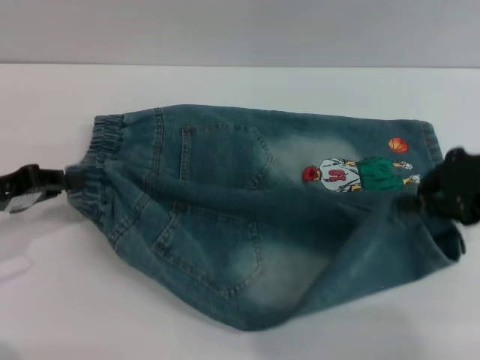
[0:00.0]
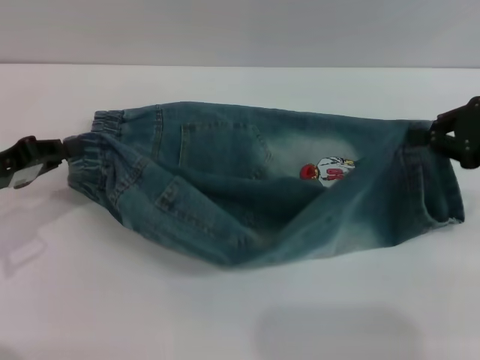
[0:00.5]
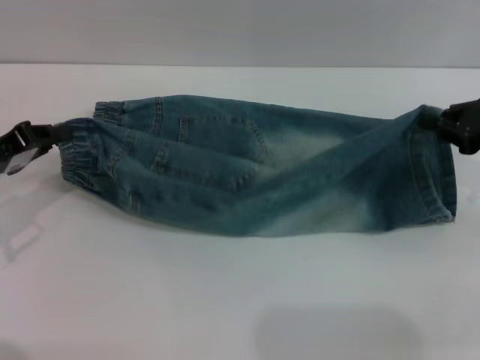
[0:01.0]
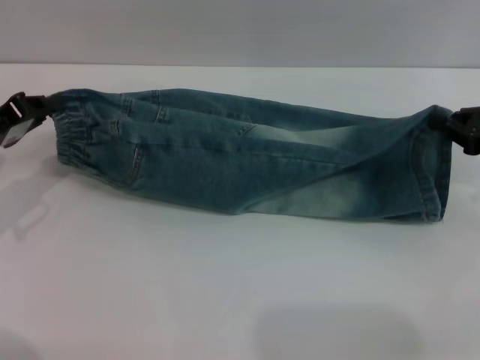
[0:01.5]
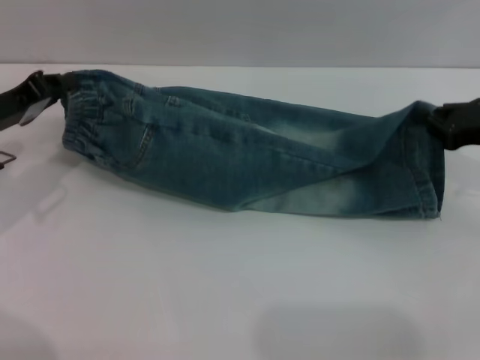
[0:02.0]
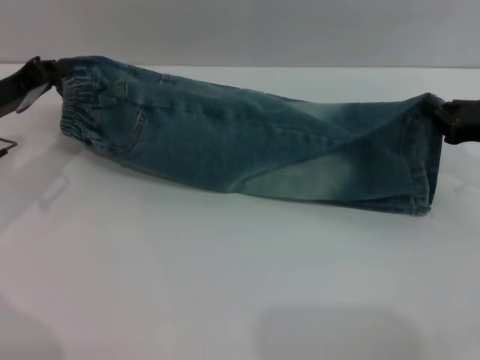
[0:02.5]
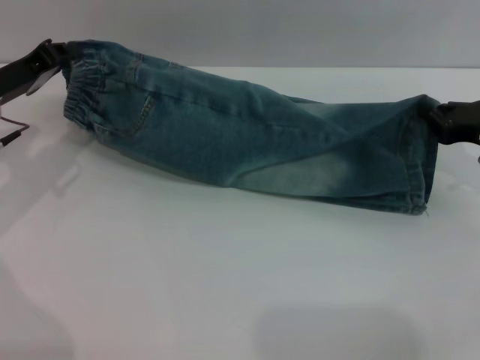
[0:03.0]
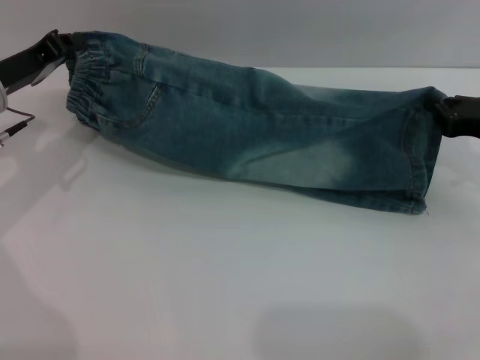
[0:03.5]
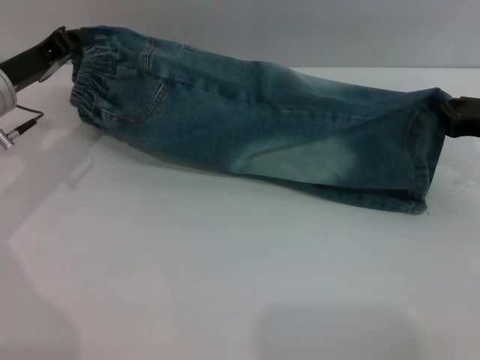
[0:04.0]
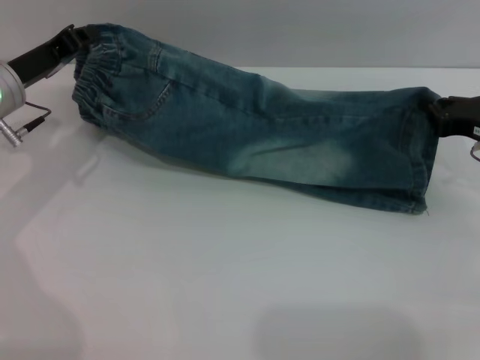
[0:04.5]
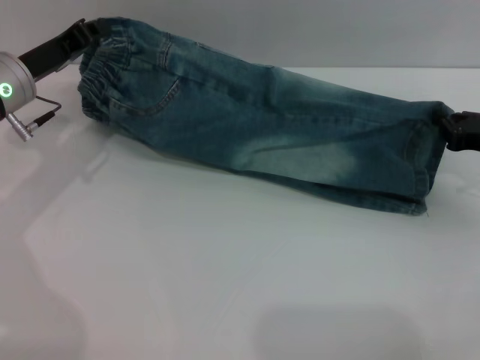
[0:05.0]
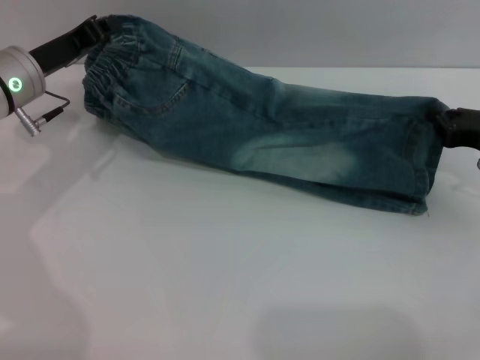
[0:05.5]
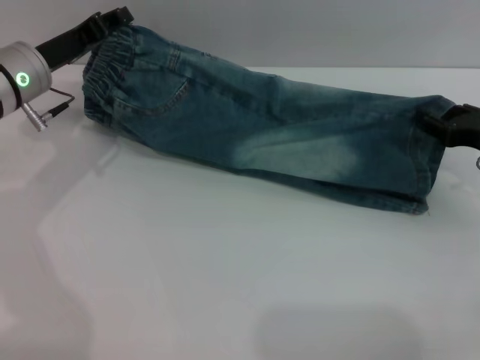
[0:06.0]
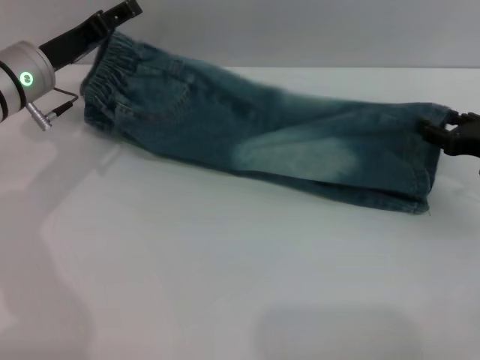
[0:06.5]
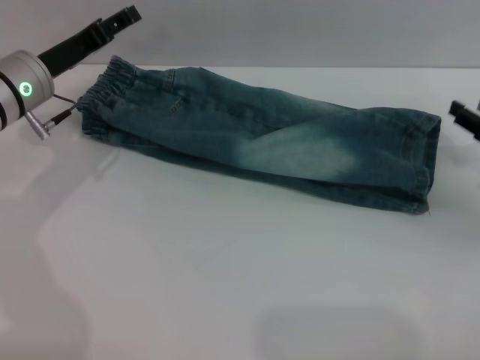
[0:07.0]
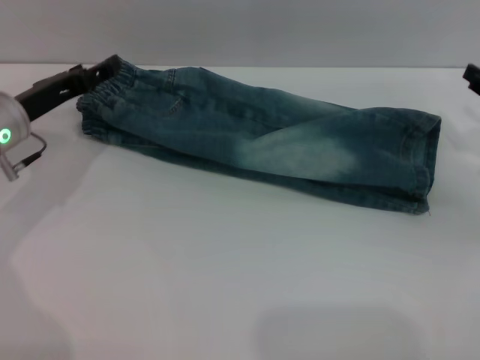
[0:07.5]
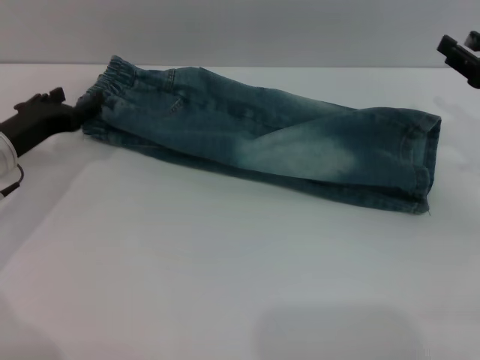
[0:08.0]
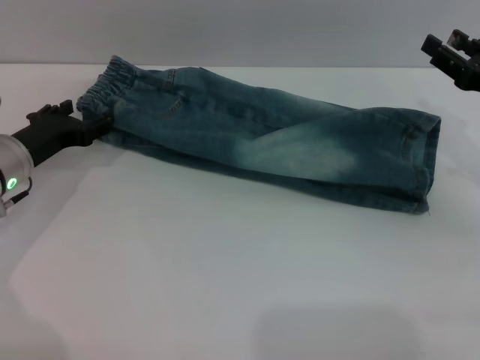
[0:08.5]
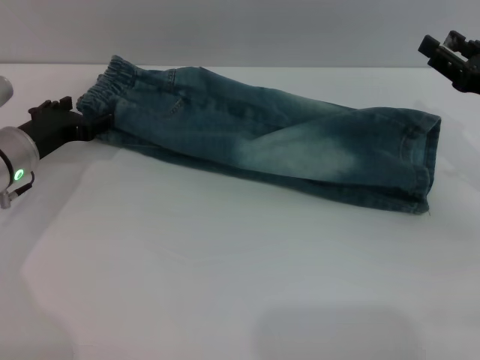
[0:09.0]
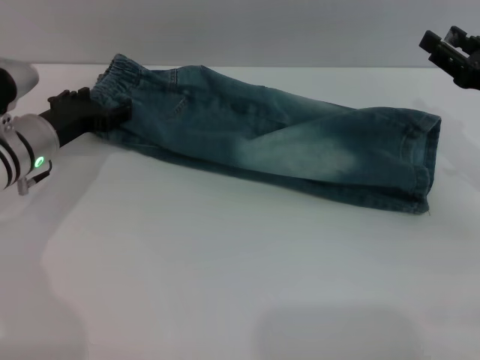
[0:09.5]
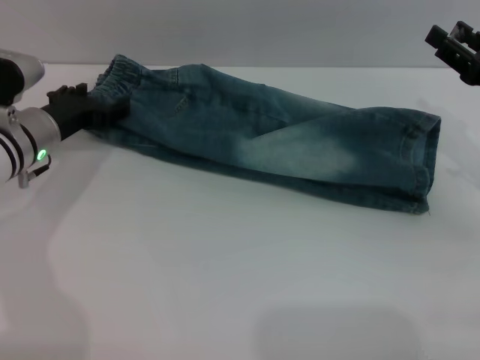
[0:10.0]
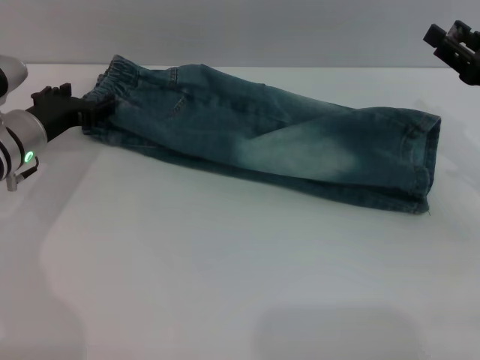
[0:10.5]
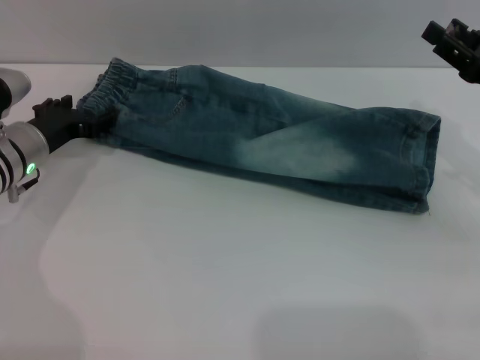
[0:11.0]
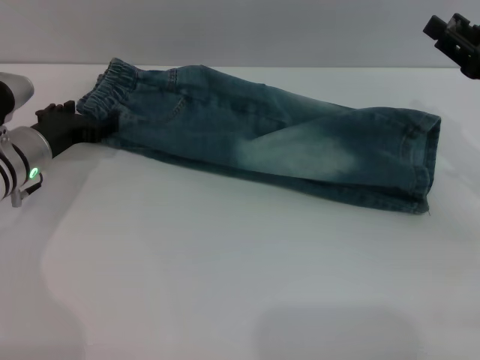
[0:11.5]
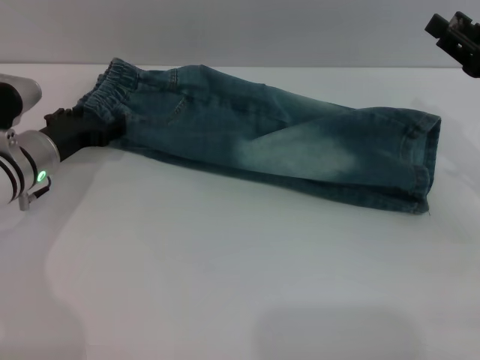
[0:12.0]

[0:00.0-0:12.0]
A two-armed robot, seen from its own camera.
Step, 0:00.0 to 0:07.0: Fold the bottom of the pants upward with both grippers.
0:00.0 to 0:02.0: The left gripper shifts roughly 5 cm forward. Meanwhile the right gripper is displaced downward by roughly 5 cm.
0:02.0 to 0:04.0: The left gripper shifts by approximately 5 cm.
0:04.0 to 0:06.0: The right gripper opens up.
0:06.0 to 0:08.0: The left gripper goes roughly 10 cm backward and downward, and opens up; the right gripper opens.
0:08.0 to 0:10.0: The left gripper shifts by roughly 5 cm.
0:10.0 to 0:12.0: The grippers move only a little.

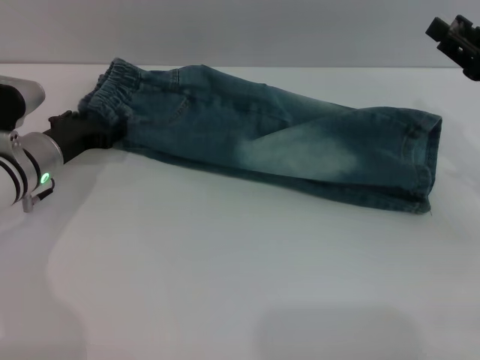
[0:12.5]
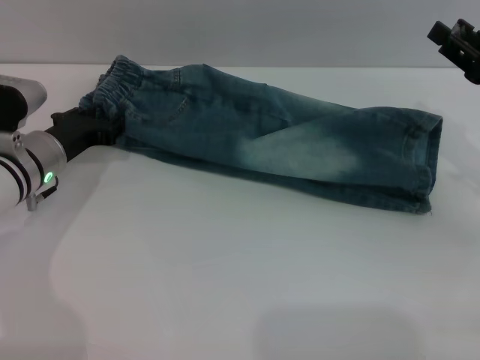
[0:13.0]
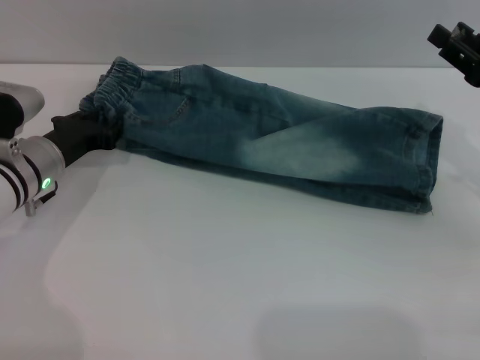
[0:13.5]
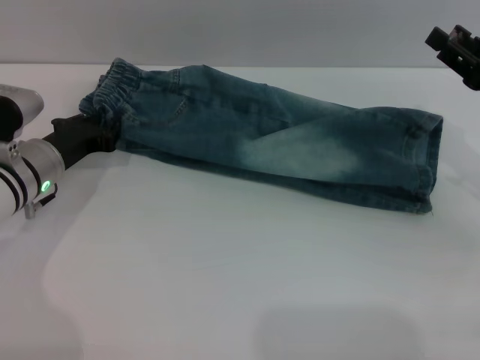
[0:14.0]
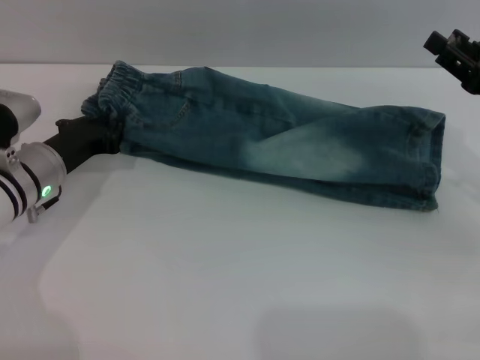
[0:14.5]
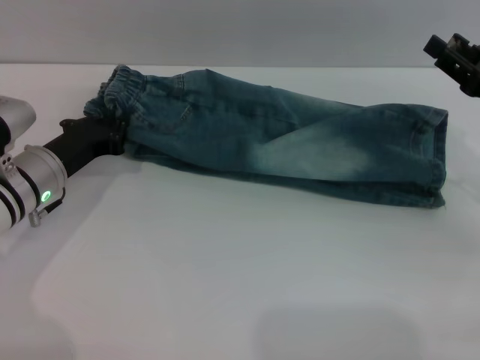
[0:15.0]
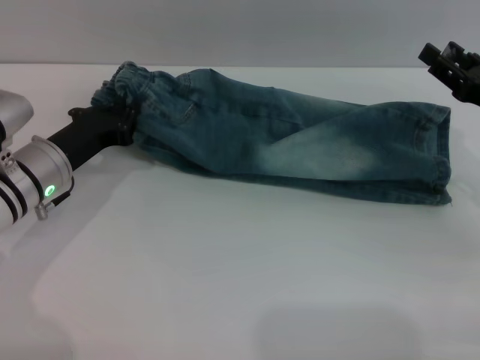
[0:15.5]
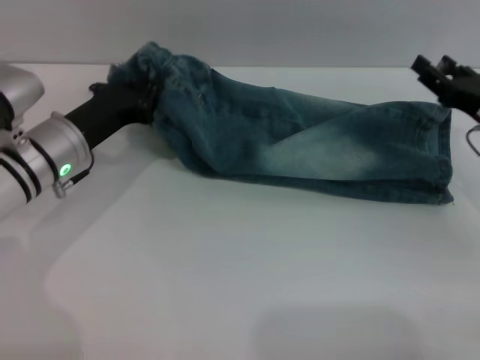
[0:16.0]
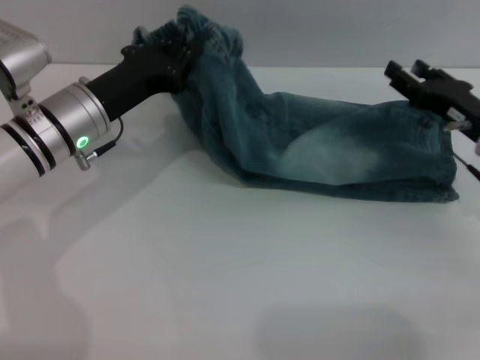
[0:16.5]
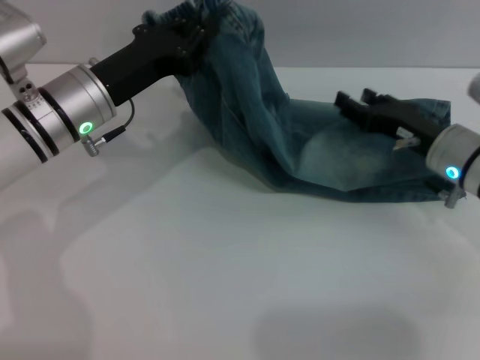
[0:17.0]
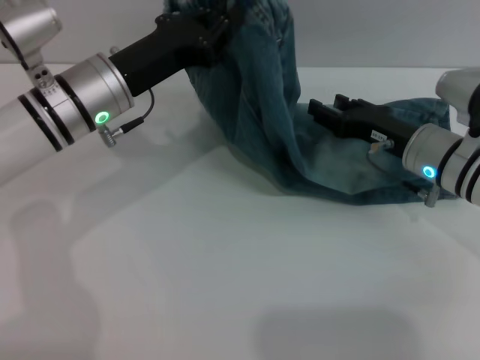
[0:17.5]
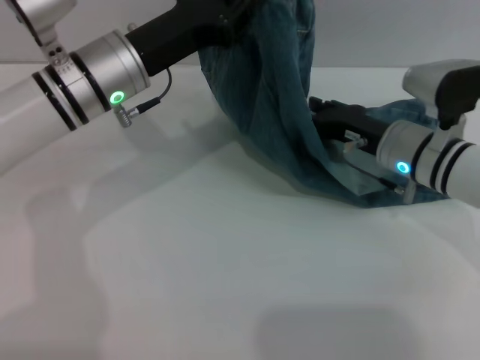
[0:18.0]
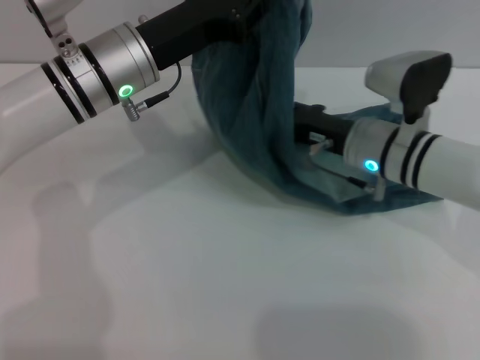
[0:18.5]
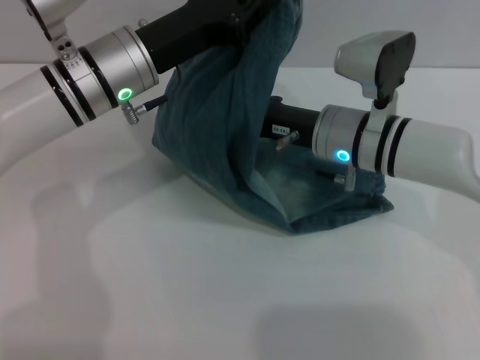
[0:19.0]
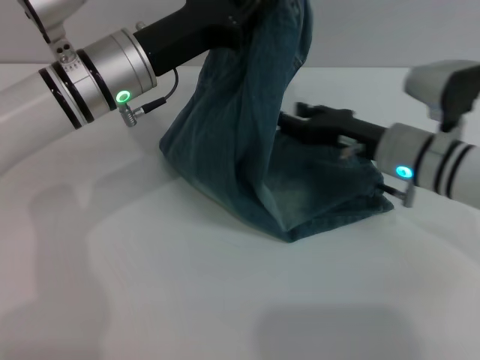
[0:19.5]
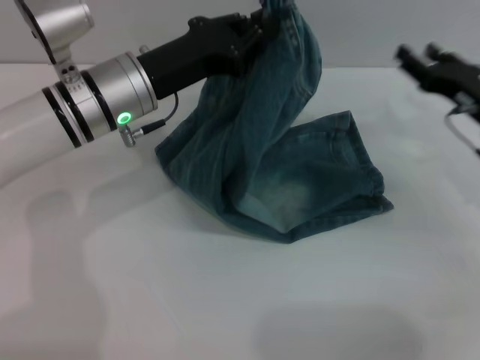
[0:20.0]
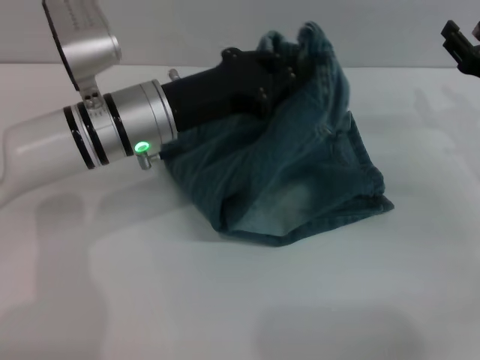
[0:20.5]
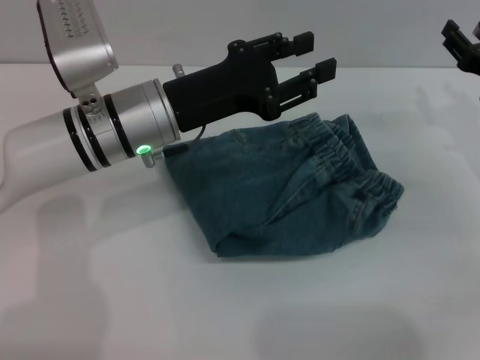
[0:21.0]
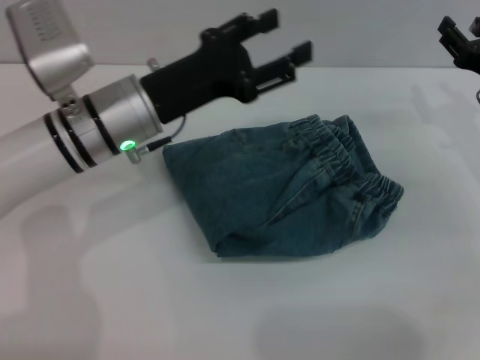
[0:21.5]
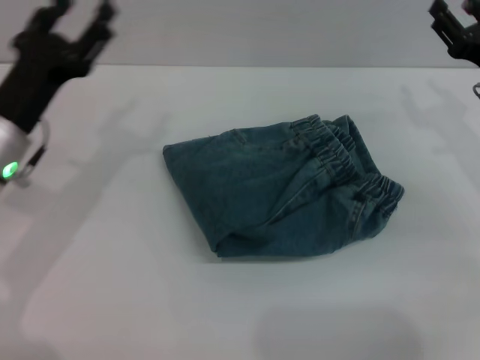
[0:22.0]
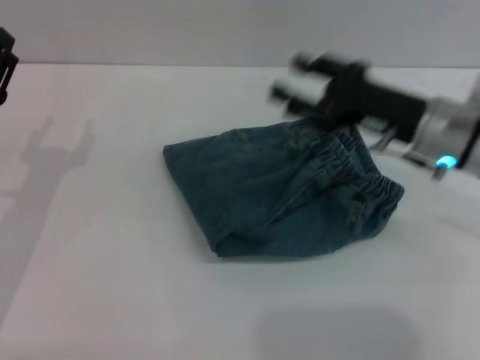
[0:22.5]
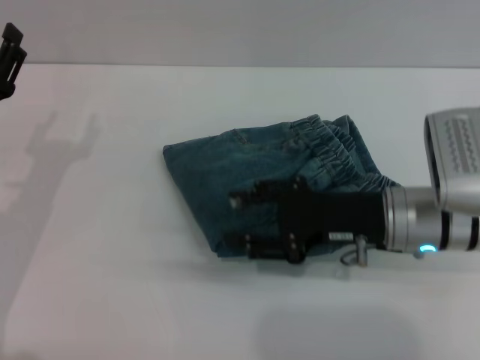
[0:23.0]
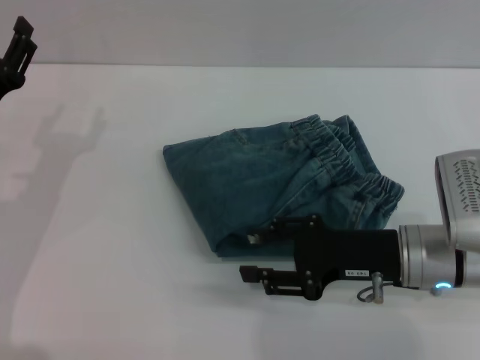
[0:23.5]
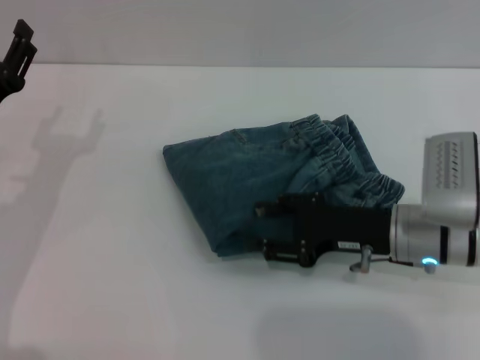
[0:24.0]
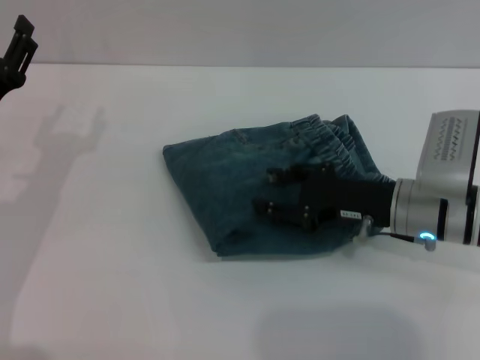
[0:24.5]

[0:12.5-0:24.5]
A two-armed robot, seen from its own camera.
Step, 0:12.5 to 0:21.0: Fold the pants from left to right with the left gripper.
0:12.5 to 0:14.5: The left gripper closes its fingers.
0:14.5 to 0:16.5: The right gripper changes place by roughly 5 cm. Meanwhile the left gripper is displaced upward and to the right by about 10 cm.
0:16.5 to 0:18.5: The left gripper shifts roughly 5 cm upward and to the right; the right gripper moves to the left, roughly 15 cm.
0:18.5 to 0:20.5: The right gripper goes roughly 15 cm to the right.
0:20.5 to 0:22.5: The right gripper travels to the left by about 10 cm. The left gripper heads to the left and backward, covering approximately 20 cm, and opens.
0:22.5 to 0:24.5: The right gripper is displaced downward by about 5 cm.

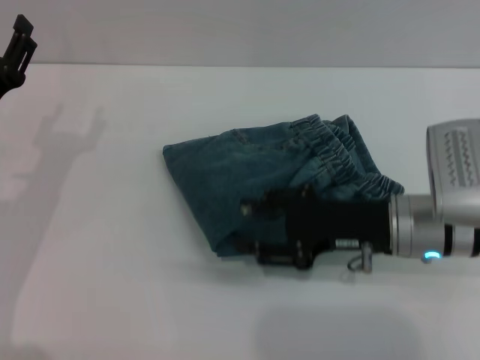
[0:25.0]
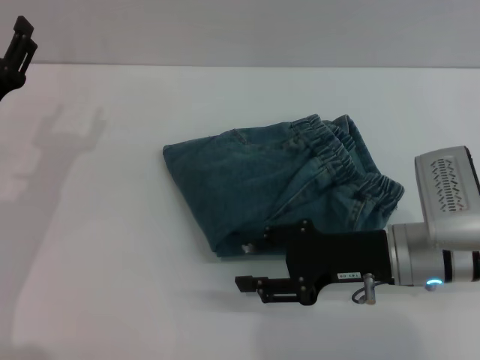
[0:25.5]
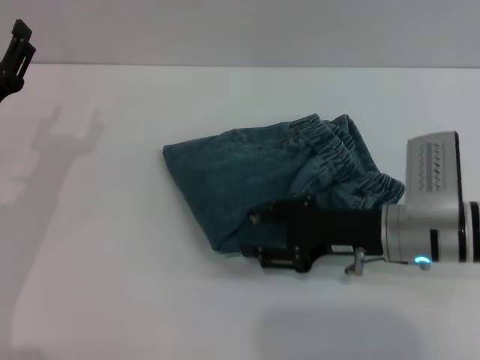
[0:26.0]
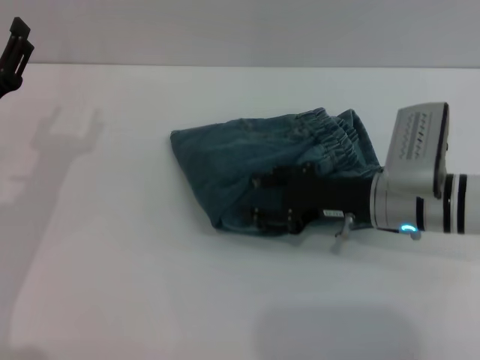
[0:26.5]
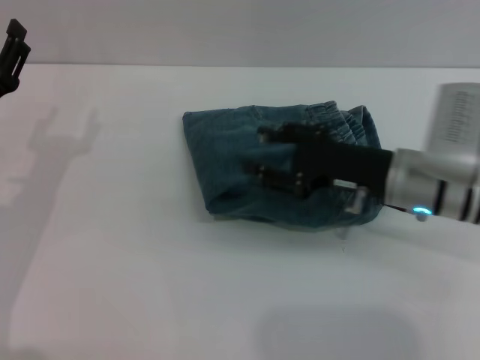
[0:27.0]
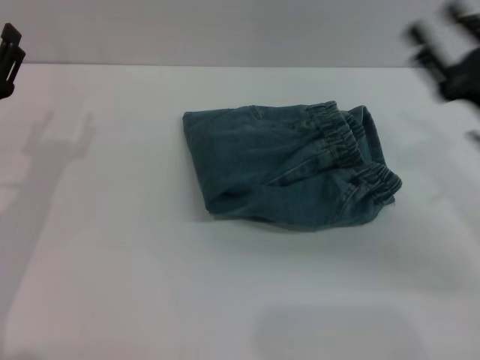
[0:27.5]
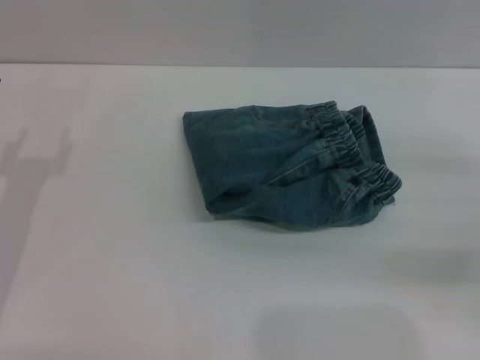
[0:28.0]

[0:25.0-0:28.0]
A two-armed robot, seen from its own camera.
Step, 0:25.0 to 0:27.0: Place the folded trousers onto the center area with the right grippers.
0:25.0 to 0:26.5: The grippers move only a little.
0:26.5 to 0:28.0: The right gripper is displaced to the right by roughly 20 cm.
